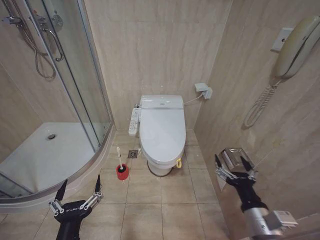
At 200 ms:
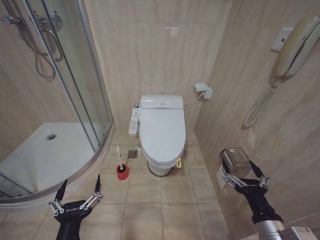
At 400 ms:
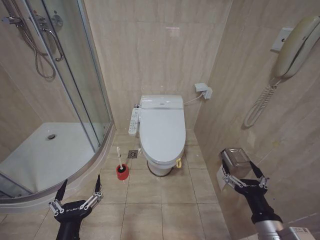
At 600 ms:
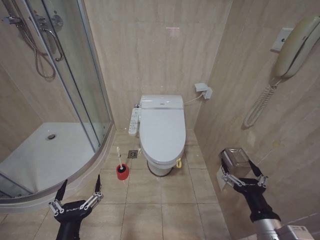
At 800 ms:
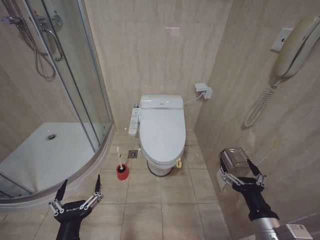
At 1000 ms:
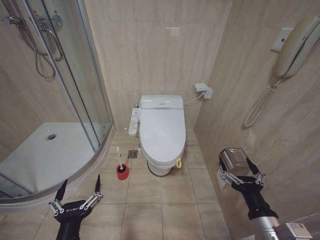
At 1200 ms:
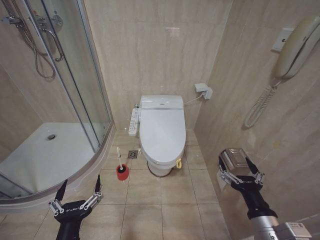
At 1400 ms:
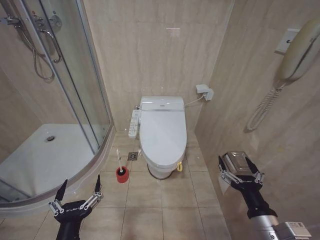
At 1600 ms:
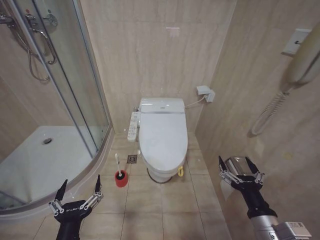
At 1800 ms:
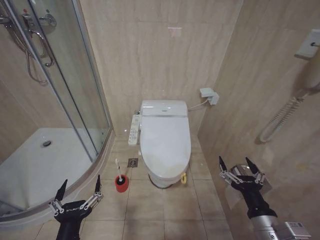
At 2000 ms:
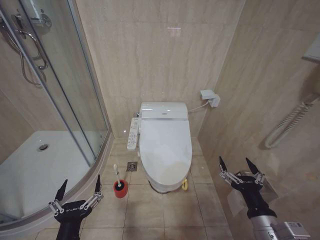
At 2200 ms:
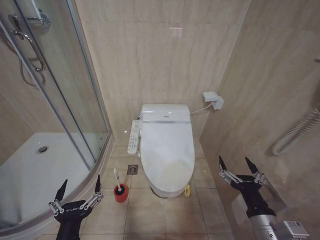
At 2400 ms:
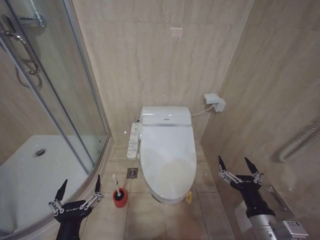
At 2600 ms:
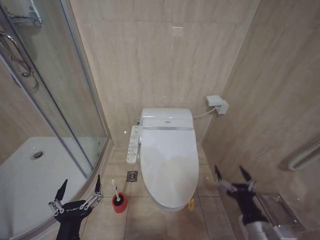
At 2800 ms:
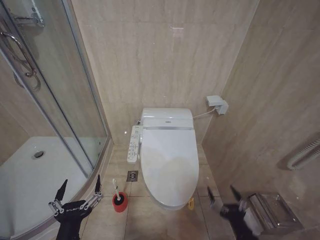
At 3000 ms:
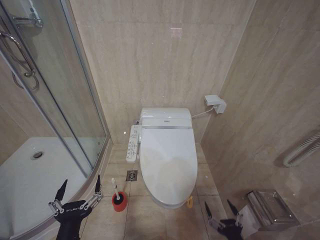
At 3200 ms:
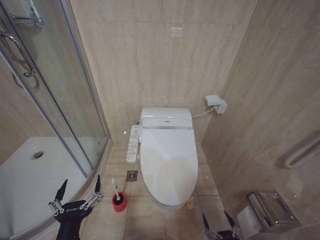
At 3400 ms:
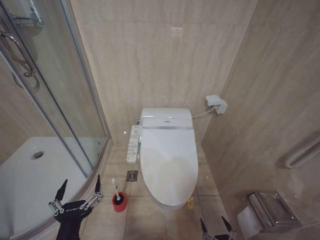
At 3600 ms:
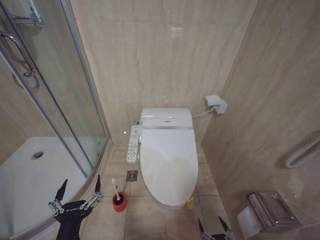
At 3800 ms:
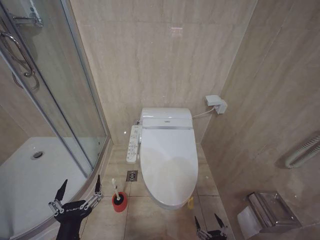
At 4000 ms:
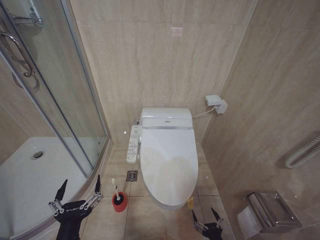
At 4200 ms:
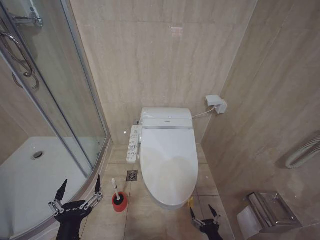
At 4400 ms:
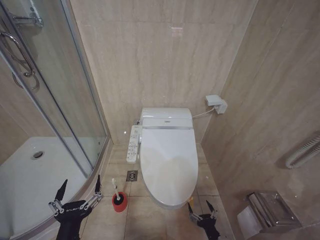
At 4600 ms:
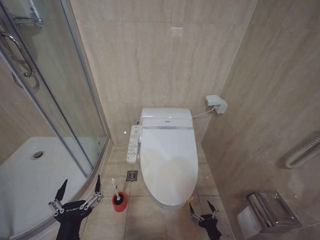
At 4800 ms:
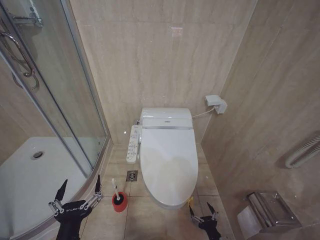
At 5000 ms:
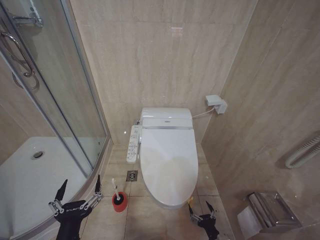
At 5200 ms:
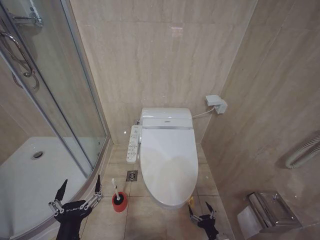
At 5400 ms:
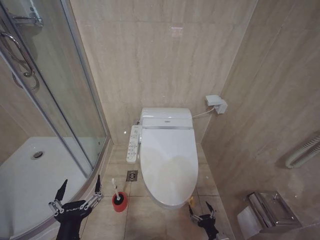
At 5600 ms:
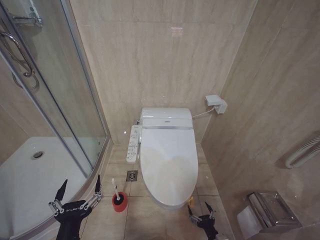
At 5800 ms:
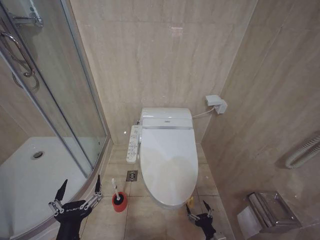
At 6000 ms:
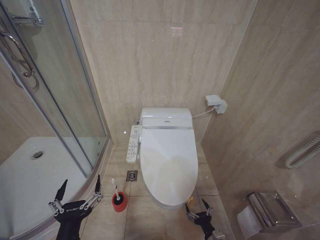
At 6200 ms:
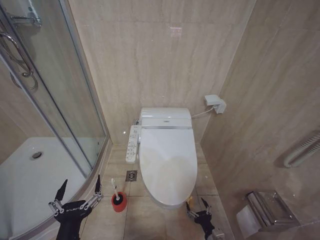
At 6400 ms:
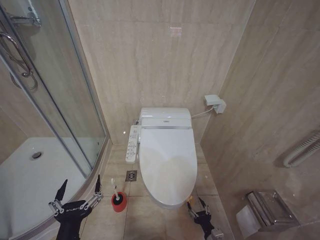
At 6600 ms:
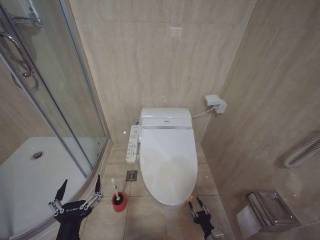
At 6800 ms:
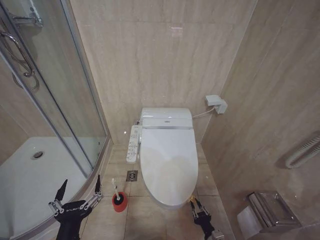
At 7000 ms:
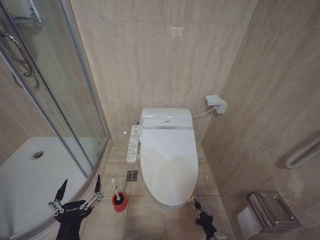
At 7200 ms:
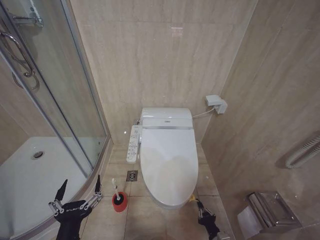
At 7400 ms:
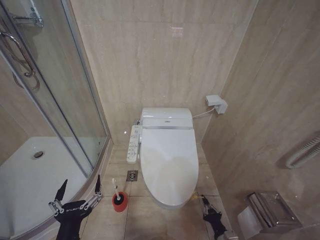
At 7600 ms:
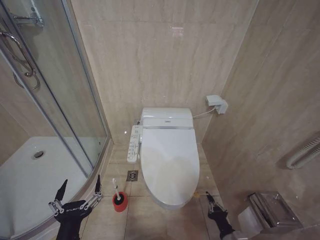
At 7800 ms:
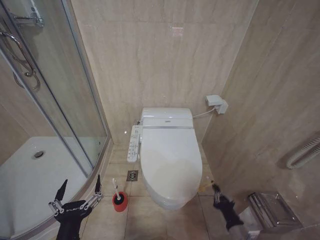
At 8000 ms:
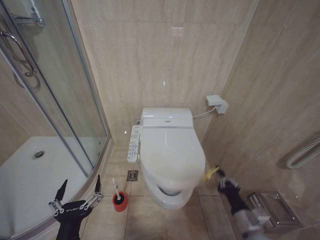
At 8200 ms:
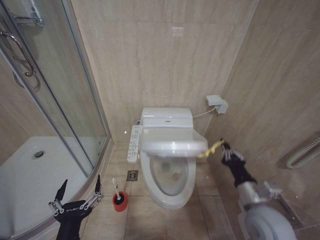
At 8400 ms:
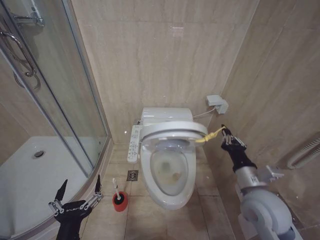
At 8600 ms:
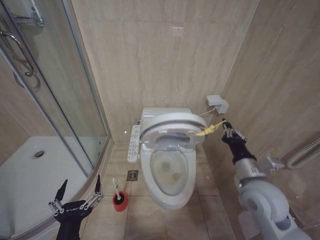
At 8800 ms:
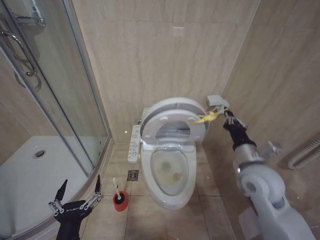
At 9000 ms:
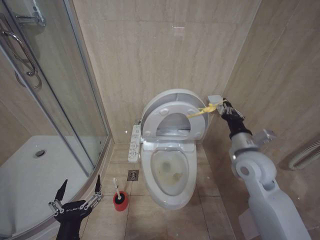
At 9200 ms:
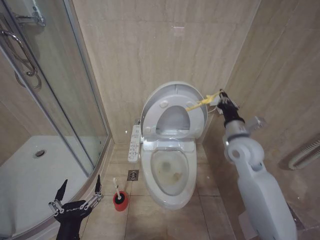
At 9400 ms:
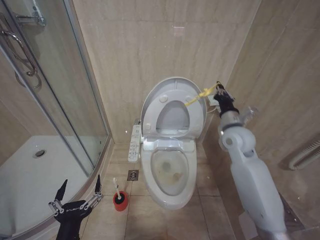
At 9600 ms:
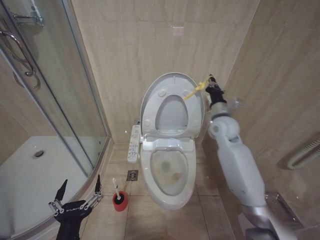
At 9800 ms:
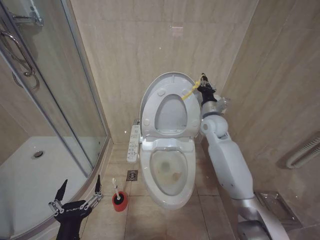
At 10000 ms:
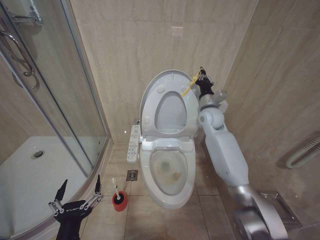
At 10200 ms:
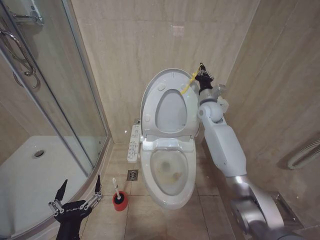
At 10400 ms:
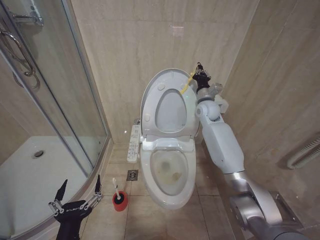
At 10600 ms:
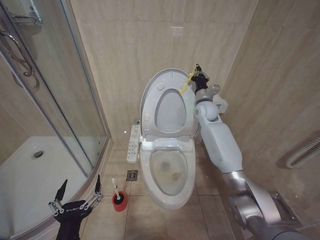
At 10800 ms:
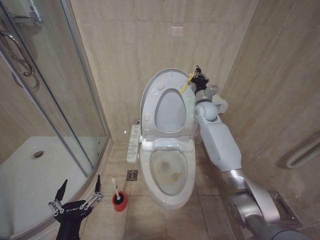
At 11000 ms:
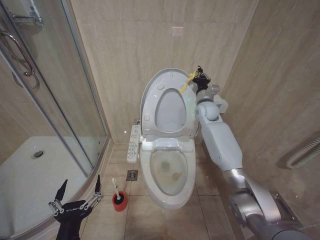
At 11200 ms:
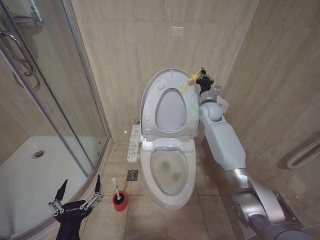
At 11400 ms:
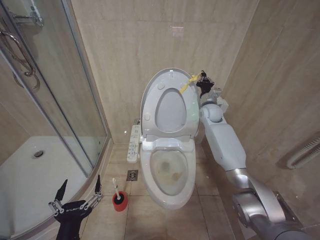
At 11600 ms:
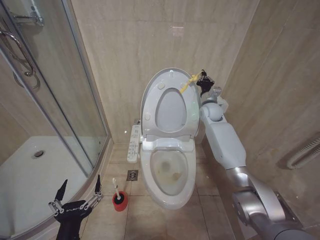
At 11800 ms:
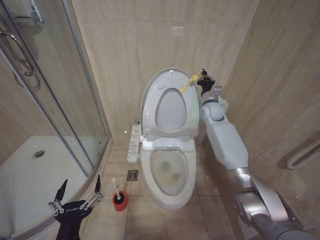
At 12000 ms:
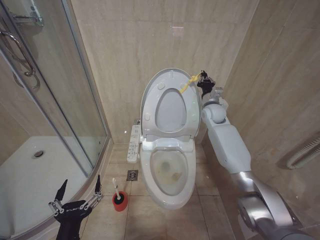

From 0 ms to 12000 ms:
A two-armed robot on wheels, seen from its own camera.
Task of the whole recording: Open the toilet lid, clean the toilet bowl with a toilet brush, close the toilet lid, and flush.
From 1600 ms to 3000 ms: The right gripper moves downward, roughly 15 cm.
From 3000 ms to 4400 ms: The right gripper is displaced downward and forward by approximately 10 cm.
From 6000 ms to 7600 ms: The right gripper moves roughly 5 cm, and closes its fingers.
From 7600 ms to 9000 ms: The right gripper goes approximately 40 cm upward and forward.
From 9000 ms to 10400 ms: The right gripper moves forward, roughly 25 cm.
From 10400 ms to 12000 ms: There are only small adjustments of the grippers.

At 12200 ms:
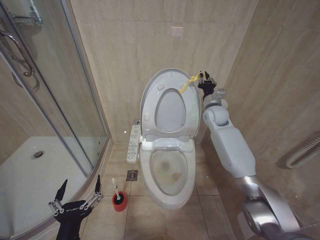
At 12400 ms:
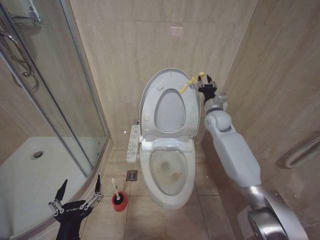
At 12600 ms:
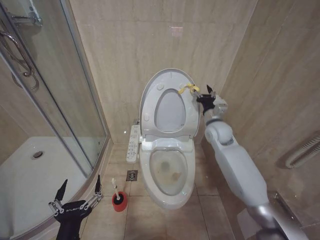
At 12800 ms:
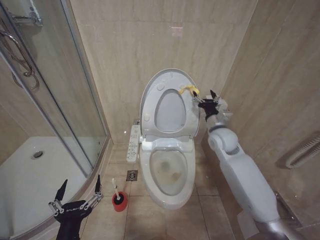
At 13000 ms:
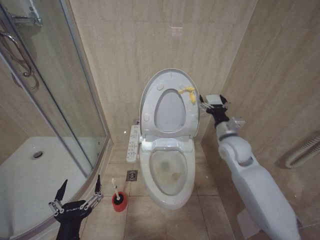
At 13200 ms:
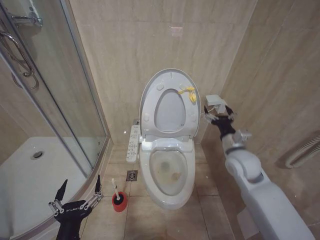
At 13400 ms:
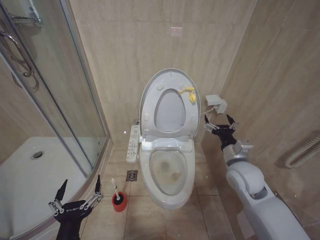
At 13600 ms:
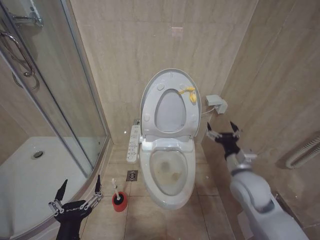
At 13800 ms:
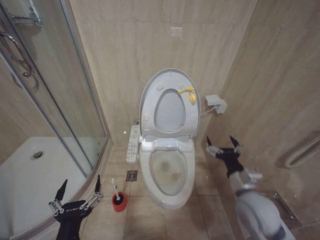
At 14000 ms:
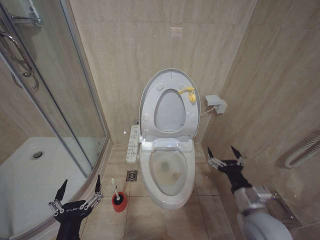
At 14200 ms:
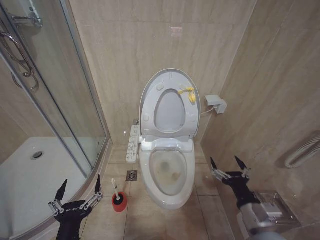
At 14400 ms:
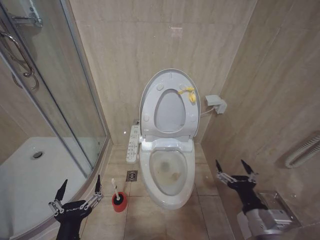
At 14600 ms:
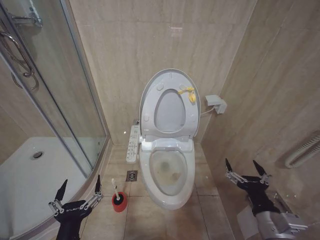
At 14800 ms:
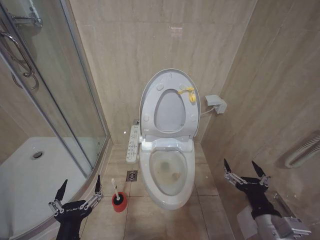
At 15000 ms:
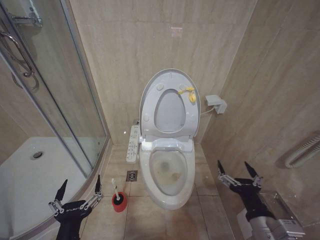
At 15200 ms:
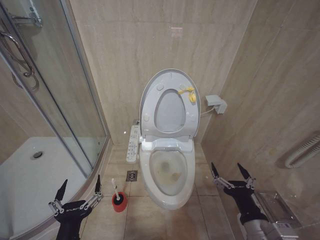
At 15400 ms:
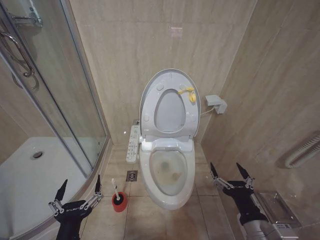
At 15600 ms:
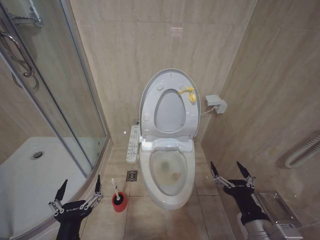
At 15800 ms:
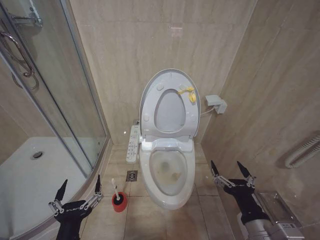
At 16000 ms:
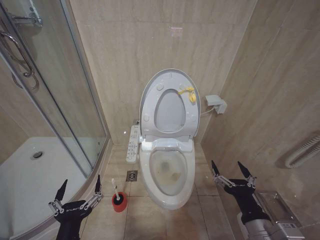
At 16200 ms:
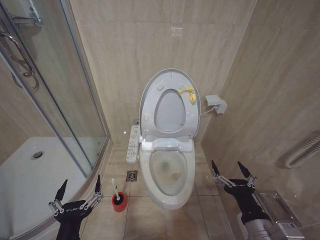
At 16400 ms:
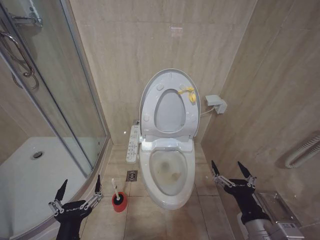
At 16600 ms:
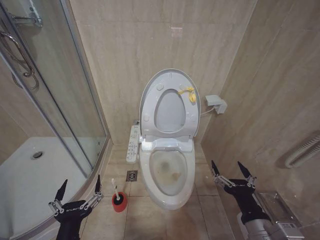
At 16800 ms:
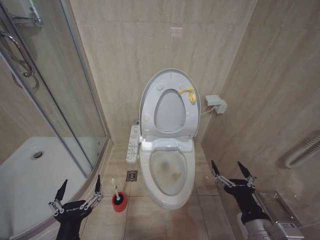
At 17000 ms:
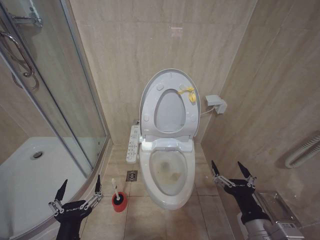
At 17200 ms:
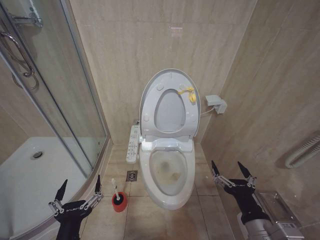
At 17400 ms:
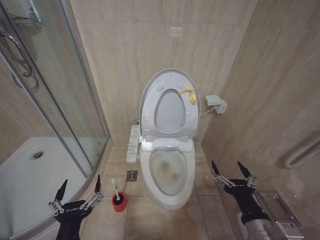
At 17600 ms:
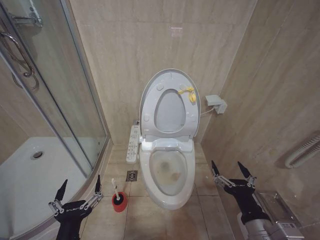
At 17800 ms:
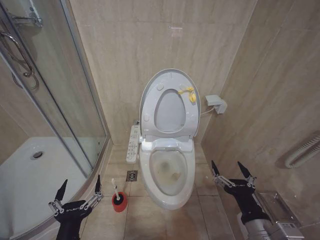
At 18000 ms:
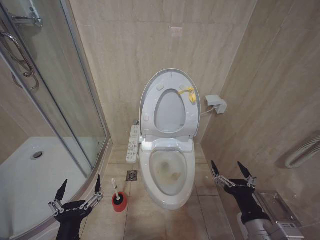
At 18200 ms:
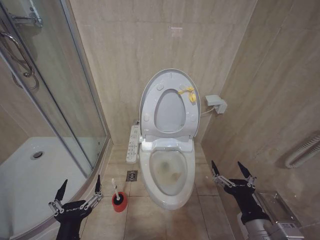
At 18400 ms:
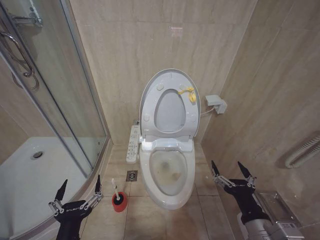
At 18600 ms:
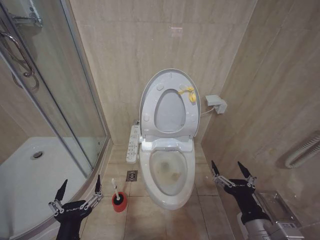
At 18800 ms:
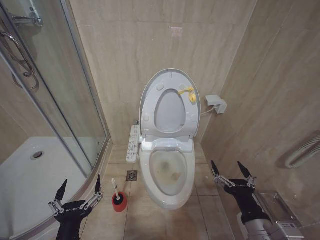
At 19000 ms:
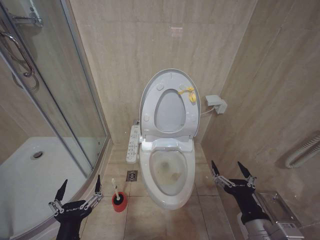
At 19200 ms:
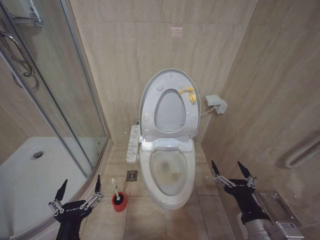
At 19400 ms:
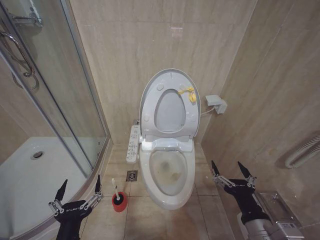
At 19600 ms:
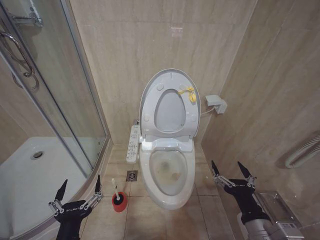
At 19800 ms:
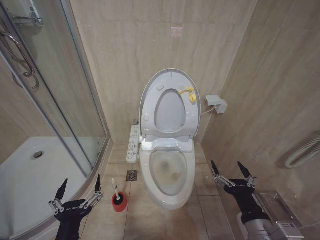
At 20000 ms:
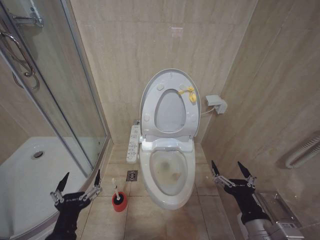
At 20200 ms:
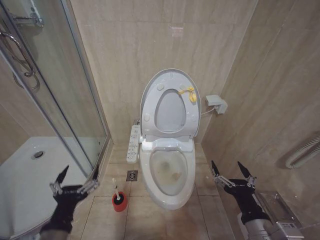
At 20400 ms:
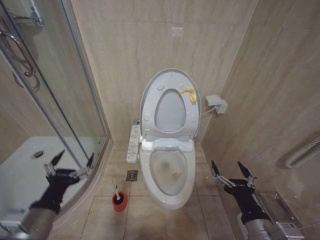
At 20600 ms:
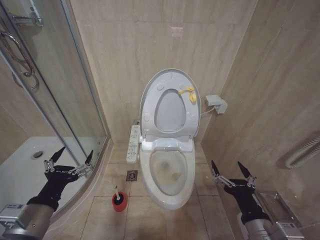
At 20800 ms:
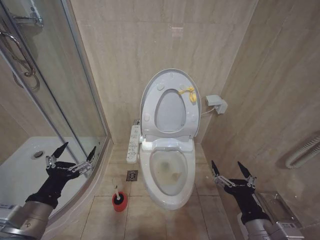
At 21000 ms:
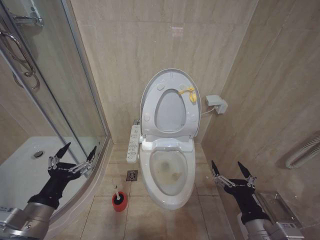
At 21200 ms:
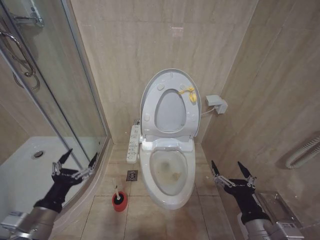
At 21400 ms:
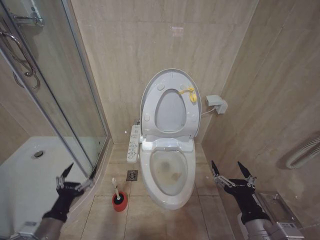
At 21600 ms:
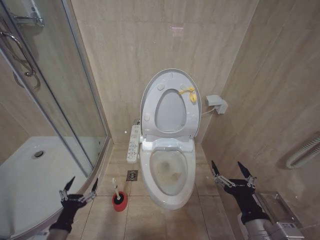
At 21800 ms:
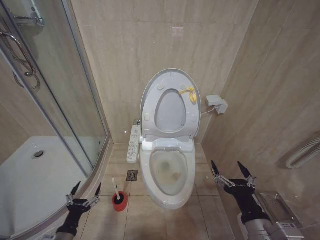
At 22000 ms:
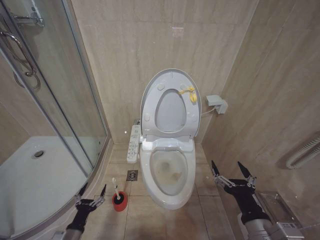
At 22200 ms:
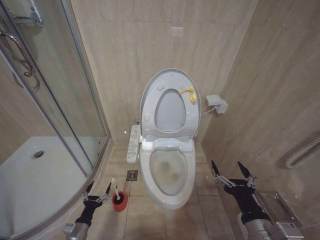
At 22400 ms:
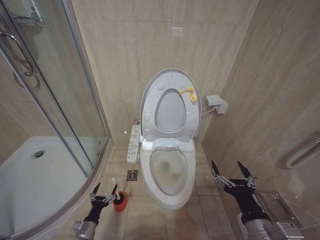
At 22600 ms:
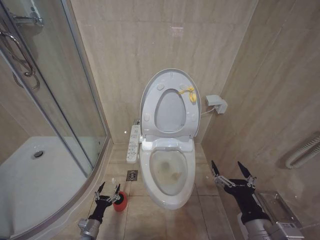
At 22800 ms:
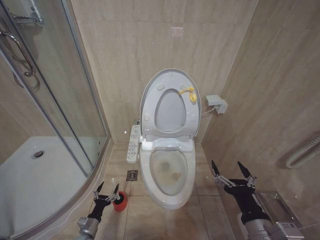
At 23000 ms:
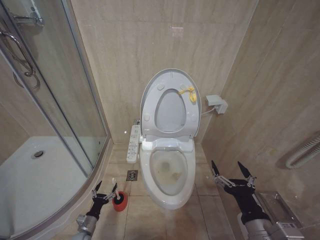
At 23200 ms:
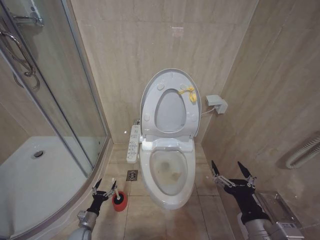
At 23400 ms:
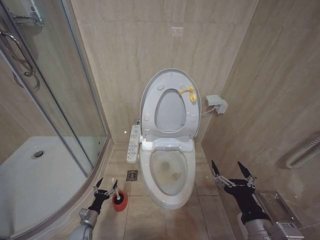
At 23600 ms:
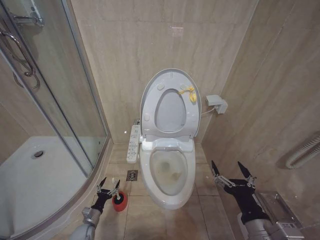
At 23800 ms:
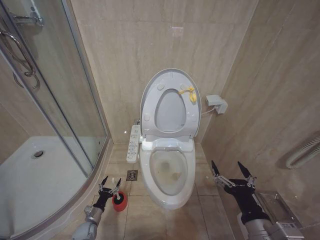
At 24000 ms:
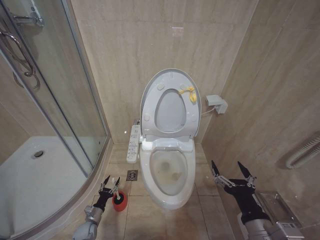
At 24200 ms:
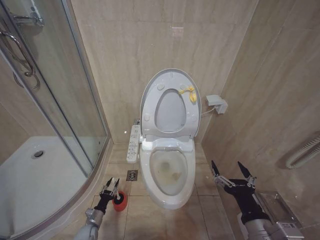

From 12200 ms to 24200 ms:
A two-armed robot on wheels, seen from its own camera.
Task of the whole recording: Open the toilet lid, clean the toilet bowl with a toilet brush, close the toilet lid, and flush.
From 12200 ms to 13800 ms: The right gripper travels backward by about 30 cm, and opens.
From 13800 ms to 15200 ms: The right gripper heads backward, covering some 15 cm.
From 16600 ms to 19800 ms: The two grippers keep their place.
From 19800 ms to 21200 ms: The left gripper travels to the left, forward and upward by some 15 cm.
From 21200 ms to 22600 ms: The left gripper shifts roughly 35 cm downward.
From 22600 ms to 24200 ms: The left gripper goes about 10 cm forward and downward.
